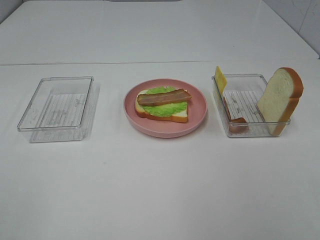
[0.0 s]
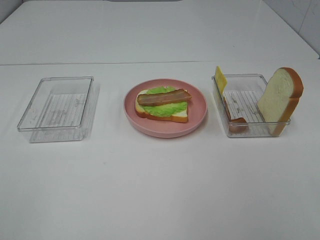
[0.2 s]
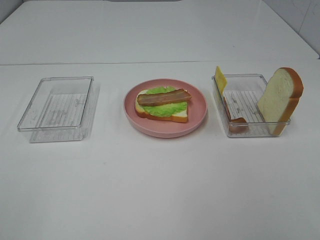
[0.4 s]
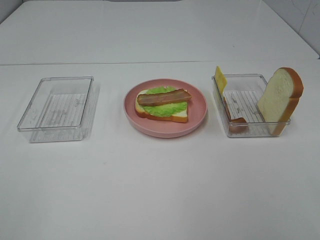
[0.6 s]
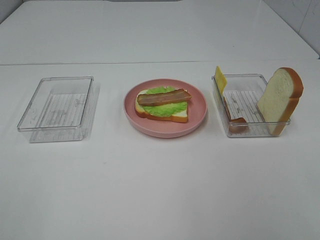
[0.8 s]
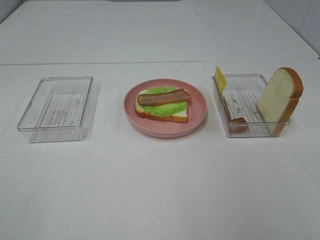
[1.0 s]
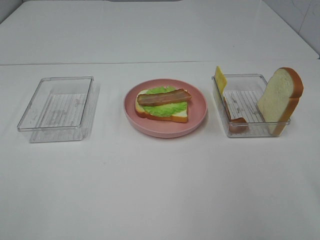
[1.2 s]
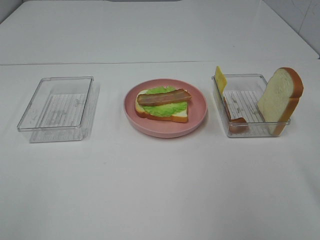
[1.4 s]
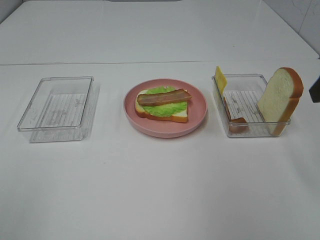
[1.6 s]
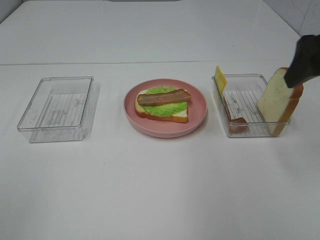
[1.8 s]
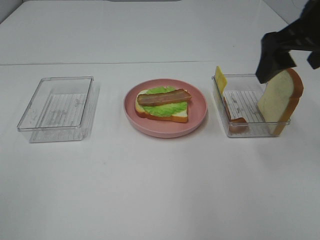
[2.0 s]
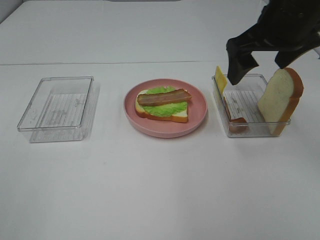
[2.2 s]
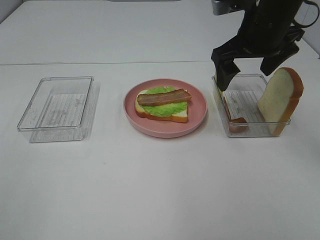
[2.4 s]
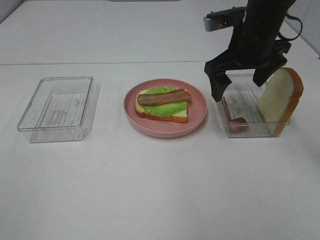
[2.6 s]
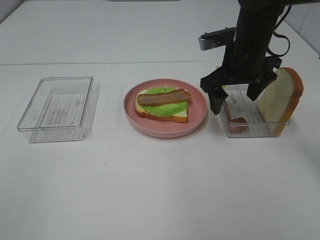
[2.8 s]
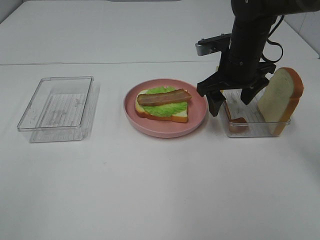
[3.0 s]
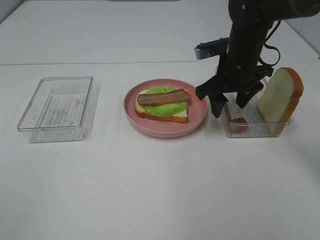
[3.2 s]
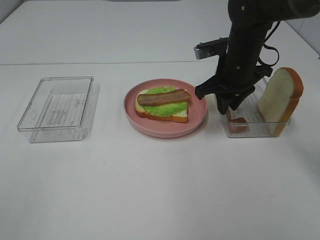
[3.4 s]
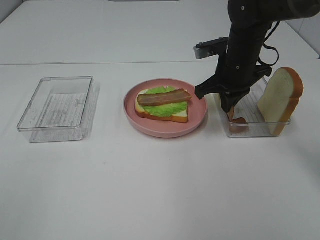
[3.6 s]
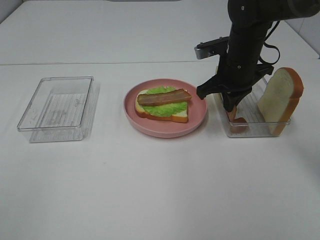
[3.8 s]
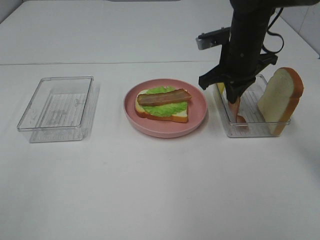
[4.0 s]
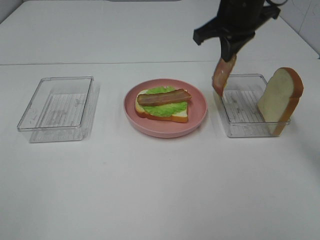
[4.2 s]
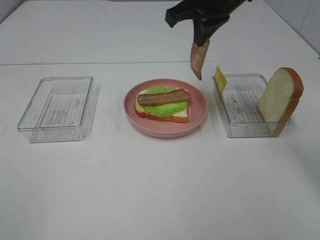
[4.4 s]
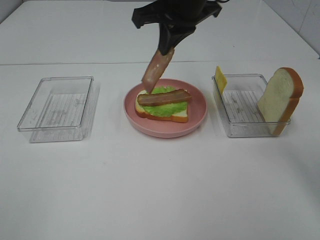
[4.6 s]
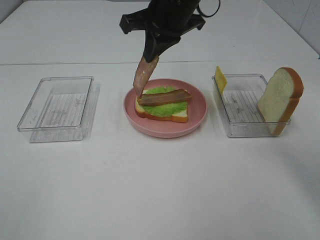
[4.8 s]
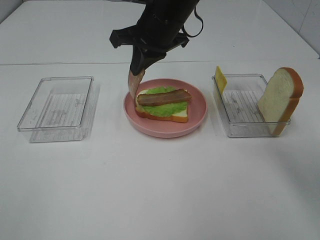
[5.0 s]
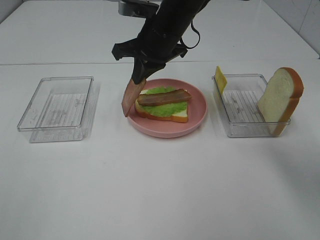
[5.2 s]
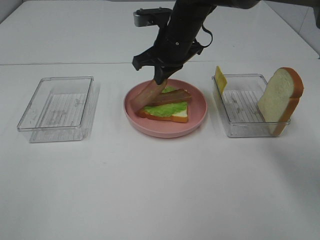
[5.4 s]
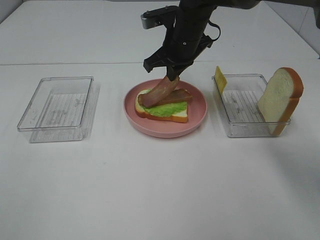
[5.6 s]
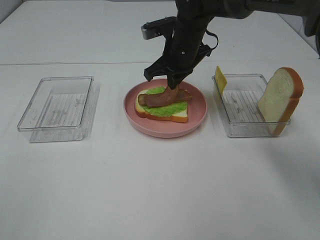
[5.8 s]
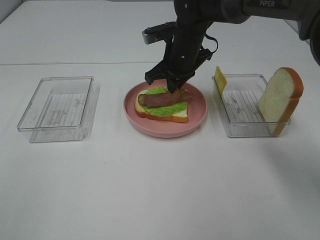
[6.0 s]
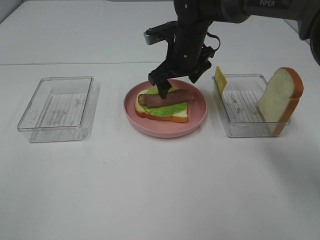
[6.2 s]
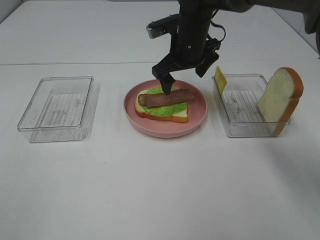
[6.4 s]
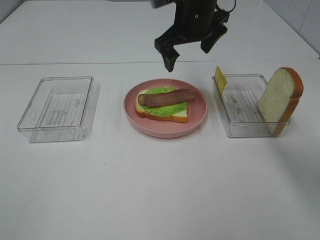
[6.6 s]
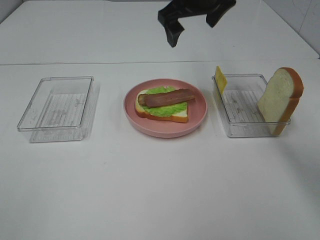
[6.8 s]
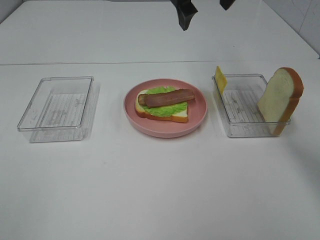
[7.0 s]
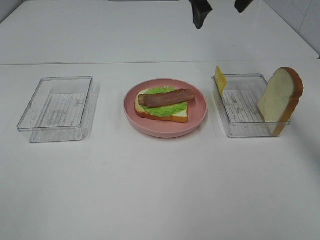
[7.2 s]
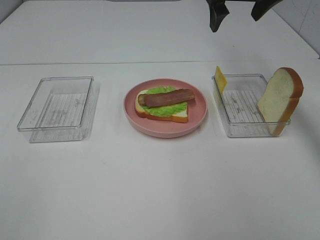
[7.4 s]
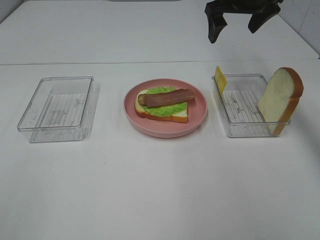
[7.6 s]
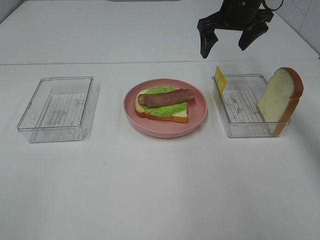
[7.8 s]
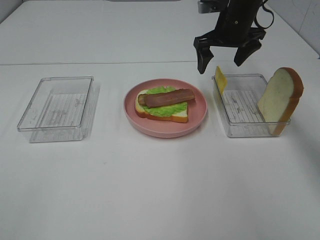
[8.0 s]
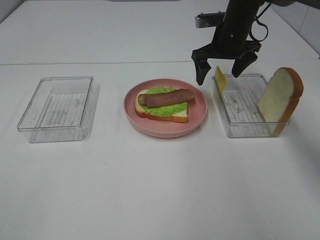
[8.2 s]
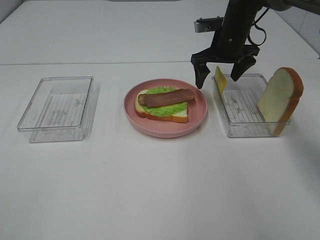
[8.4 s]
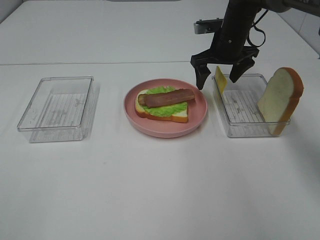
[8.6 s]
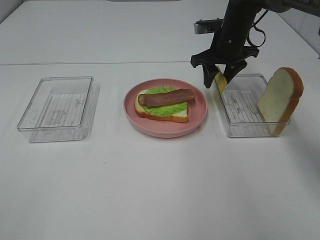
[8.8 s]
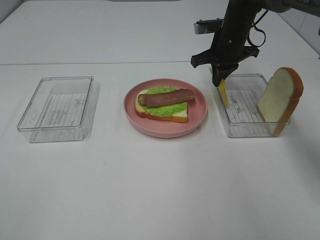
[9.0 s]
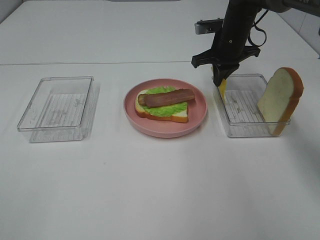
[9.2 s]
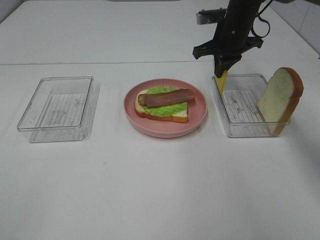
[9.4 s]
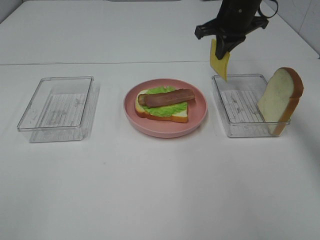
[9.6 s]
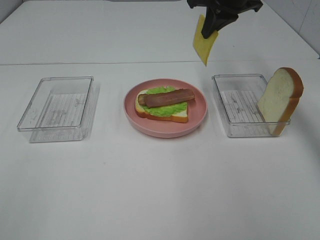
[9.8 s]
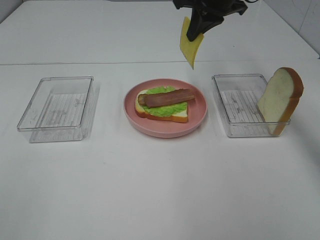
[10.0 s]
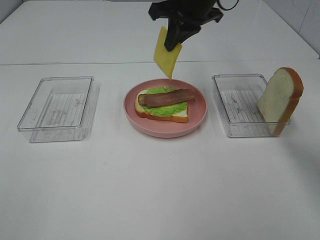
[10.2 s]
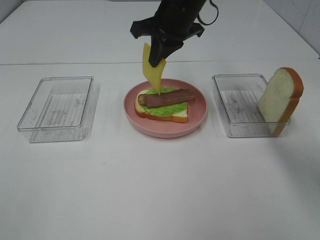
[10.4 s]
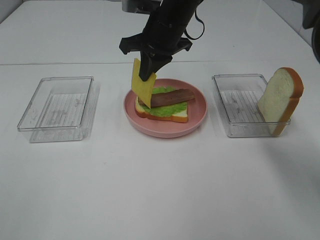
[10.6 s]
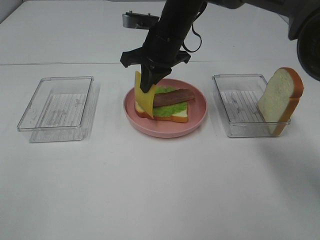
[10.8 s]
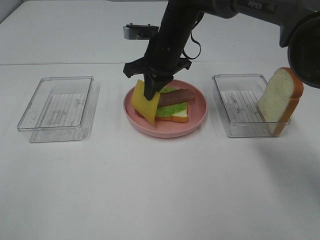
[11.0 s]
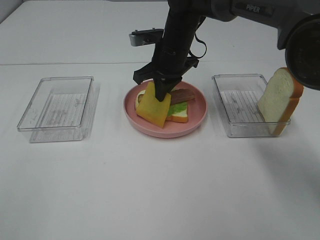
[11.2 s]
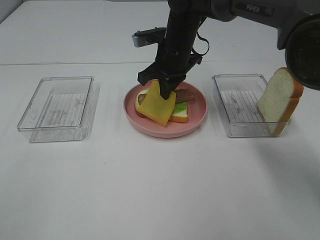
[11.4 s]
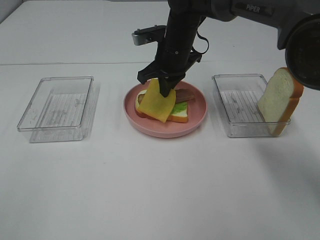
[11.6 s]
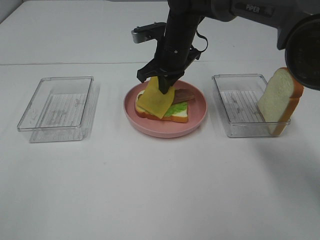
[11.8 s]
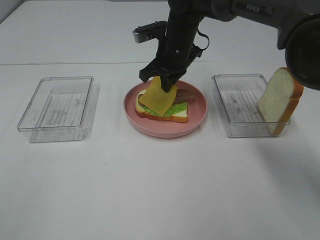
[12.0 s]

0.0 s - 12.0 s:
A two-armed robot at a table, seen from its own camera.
Task of the whole recording: Make sandwiches.
Step, 0.0 s - 3.8 s: Right hand:grab the bacon.
Step, 4.0 s - 6.4 s: Right hand:place bacon on bacon.
Step, 6.6 s - 9.0 s: Right hand:grab the cheese slice.
1.6 s - 3.0 s: The right gripper is displaced forward, downward and to the left by approximately 25 cm.
3.0 s - 4.4 s: The right gripper travels upward and to the left by about 15 cm, and closes up.
4.4 s - 6.0 s: The right gripper travels downward by roughly 15 cm.
6.0 s - 7.6 s: The right gripper is displaced to the right and upward by about 15 cm, and opens.
7.6 s - 9.0 s: The right gripper goes about 10 cm downward, and closes its fingers.
9.0 s - 10.4 s: The right gripper shifts approximately 15 cm to the left, upward and backward.
10.4 s - 12.0 s: The right gripper shifts some 10 cm downward.

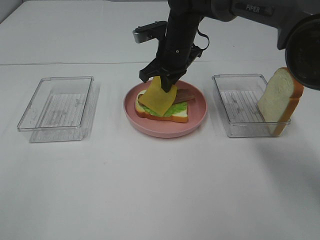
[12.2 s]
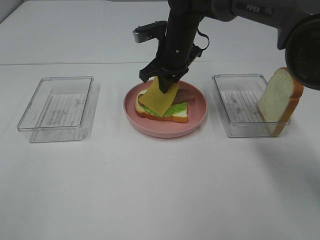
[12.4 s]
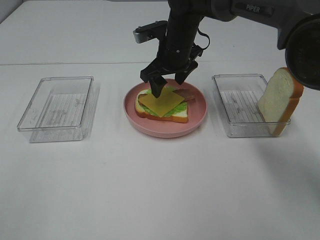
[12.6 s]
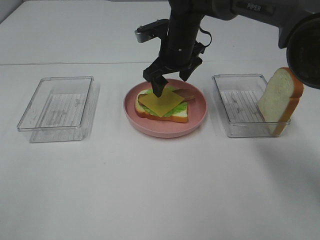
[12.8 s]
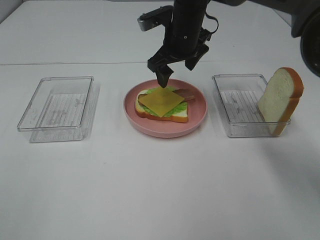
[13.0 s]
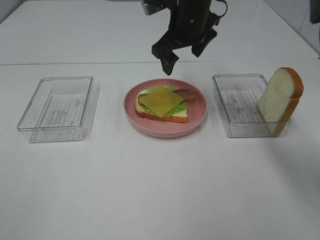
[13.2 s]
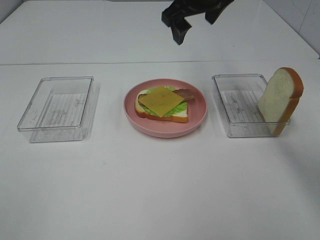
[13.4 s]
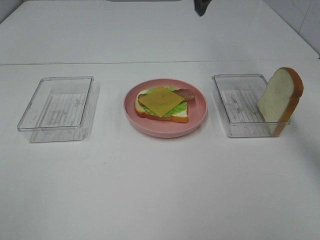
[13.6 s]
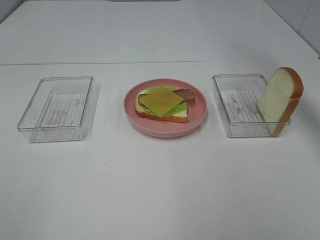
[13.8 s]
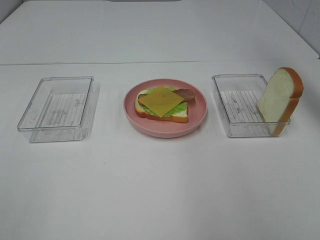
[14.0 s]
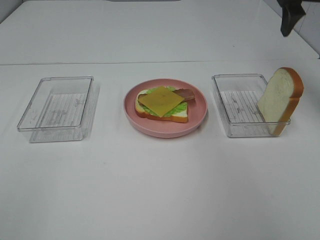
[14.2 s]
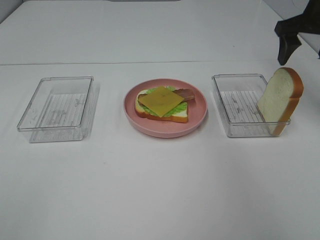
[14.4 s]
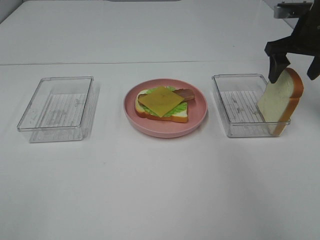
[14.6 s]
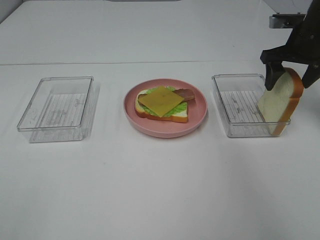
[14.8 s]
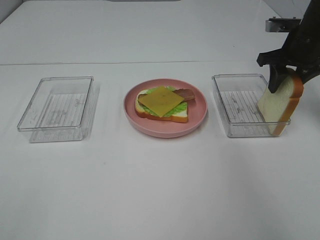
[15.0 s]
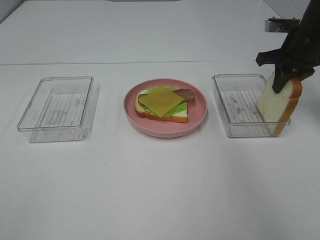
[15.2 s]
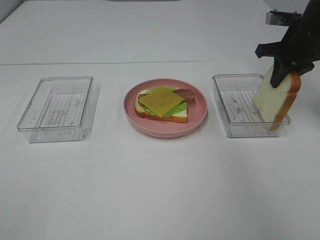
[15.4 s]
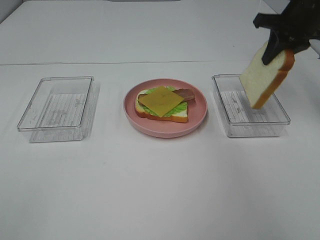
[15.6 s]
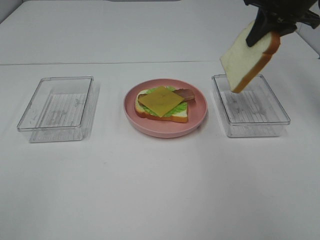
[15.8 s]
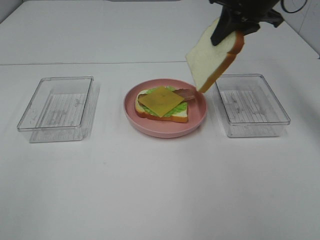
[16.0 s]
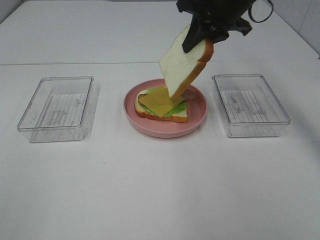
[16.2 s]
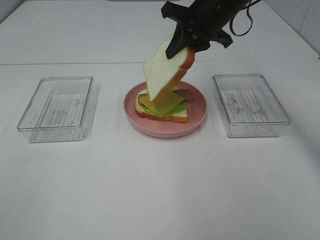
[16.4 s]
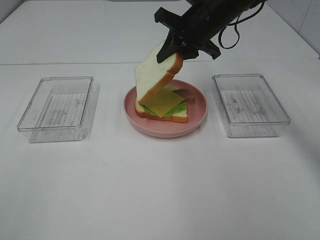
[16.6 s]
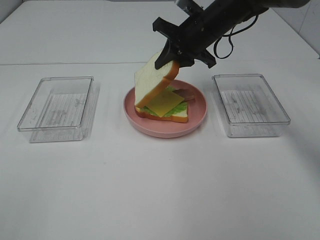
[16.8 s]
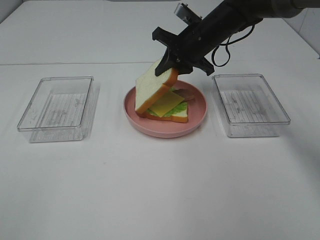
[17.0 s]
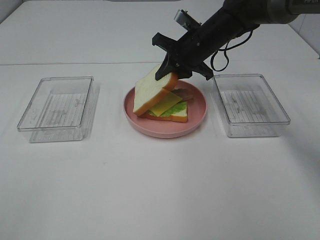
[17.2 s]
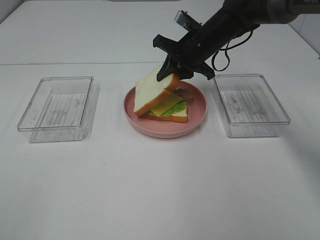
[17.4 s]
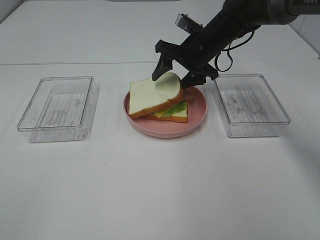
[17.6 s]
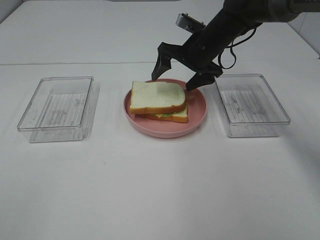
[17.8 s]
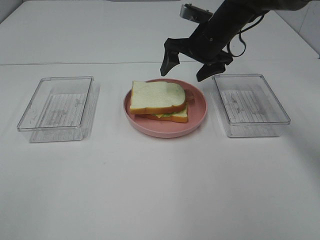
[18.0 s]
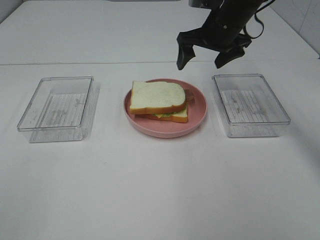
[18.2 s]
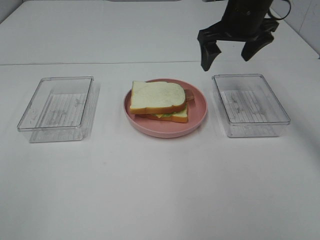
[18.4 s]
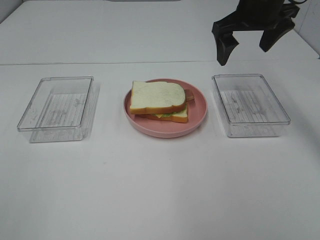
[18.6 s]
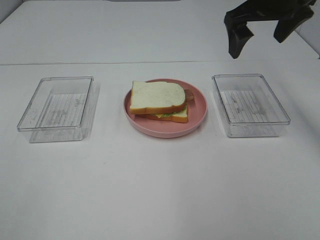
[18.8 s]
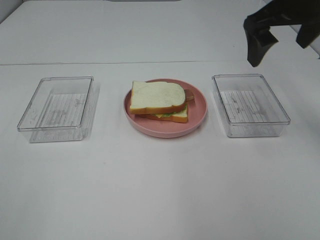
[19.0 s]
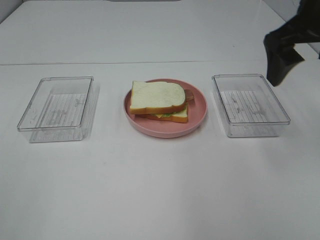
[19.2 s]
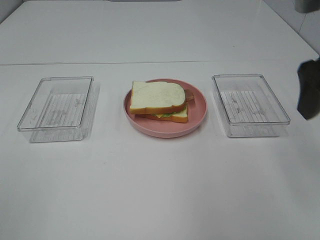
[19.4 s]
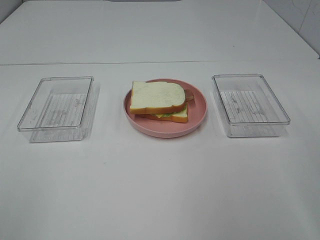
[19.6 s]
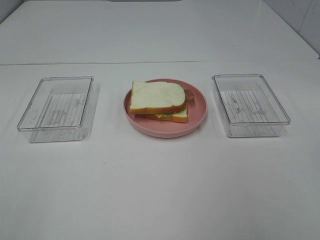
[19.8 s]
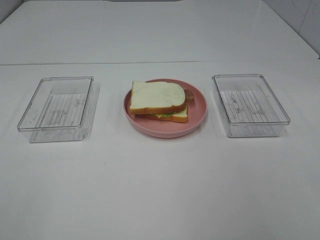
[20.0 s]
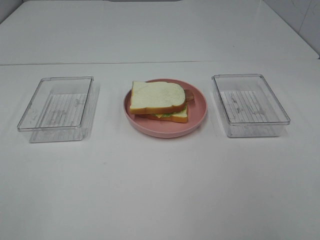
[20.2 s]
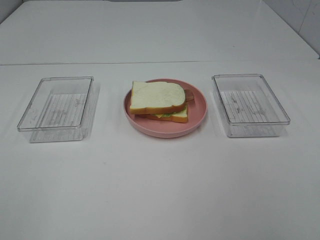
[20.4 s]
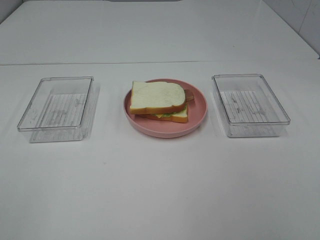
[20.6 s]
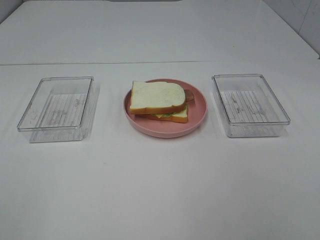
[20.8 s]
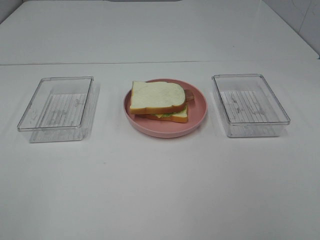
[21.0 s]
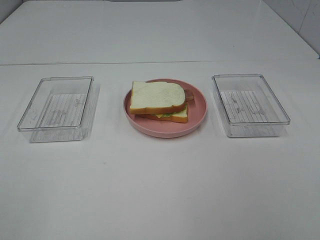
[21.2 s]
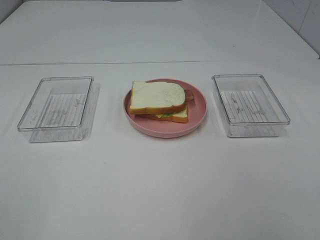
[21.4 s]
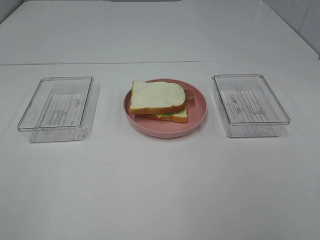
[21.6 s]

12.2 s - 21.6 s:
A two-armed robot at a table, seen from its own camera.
Task of the whole recording: Make sandwiches.
Step, 13.2 s - 15.4 s: Right hand:grab the bread slice.
Step, 15.6 s - 17.8 s: Right hand:place the bread slice on the cheese slice.
12.2 s - 13.8 s: The right gripper heads upward and to the right, covering some 25 cm, and opens.
13.8 s - 15.4 s: The right gripper moves downward and to the right, some 20 cm, and closes its fingers.
15.4 s - 17.0 s: The right gripper heads to the left, covering roughly 20 cm.
17.0 s - 18.4 s: The right gripper heads upward and to the right, covering some 10 cm, and opens up.
18.4 s - 20.0 s: The right gripper shifts roughly 35 cm backward.

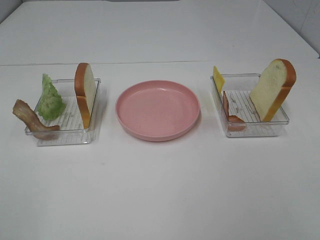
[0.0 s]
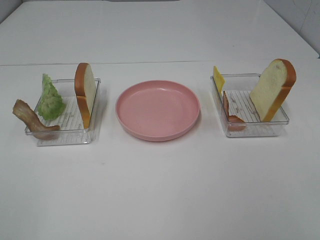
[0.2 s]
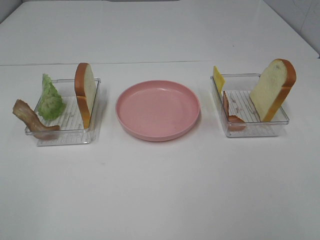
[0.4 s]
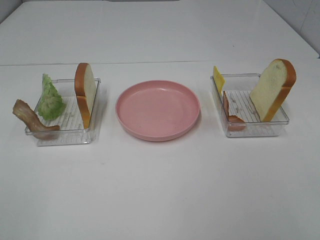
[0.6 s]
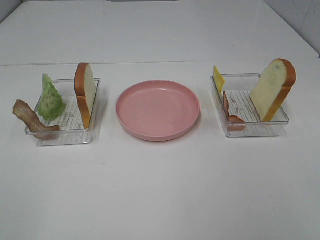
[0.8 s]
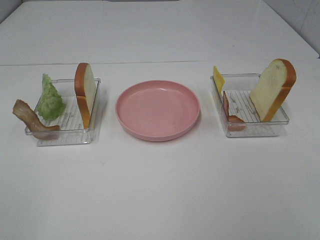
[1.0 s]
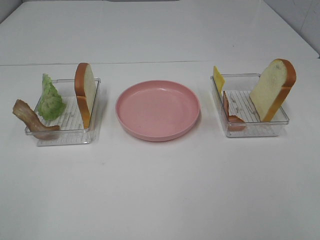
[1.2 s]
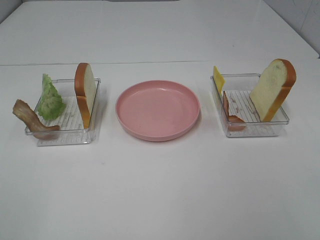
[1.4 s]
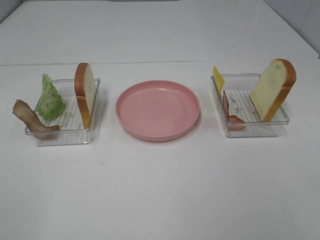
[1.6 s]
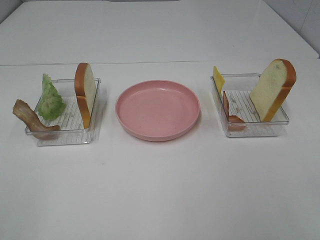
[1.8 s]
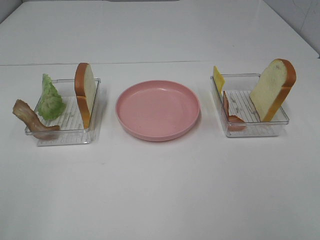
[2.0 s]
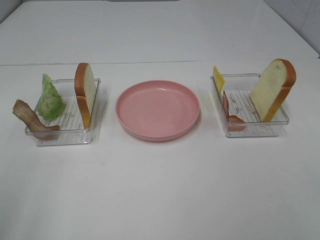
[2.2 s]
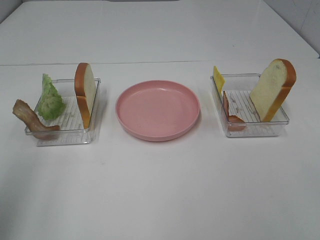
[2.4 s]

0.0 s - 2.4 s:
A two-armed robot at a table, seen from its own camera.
Task of the whole recording: Make sandwiches.
0.0 s - 1.2 s: Both grippers stay put.
1.2 s - 2.4 s: The left gripper travels forward and upward by about 15 cm.
